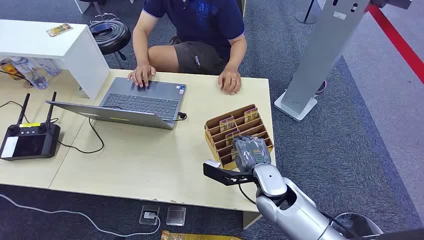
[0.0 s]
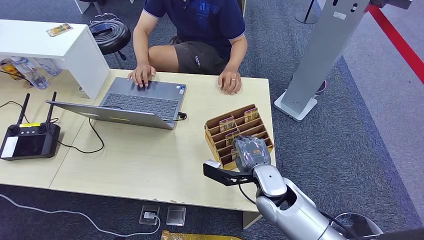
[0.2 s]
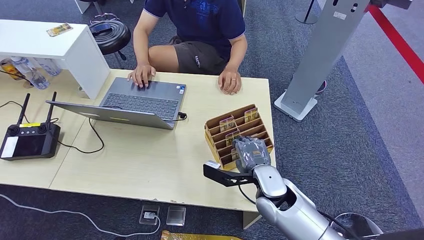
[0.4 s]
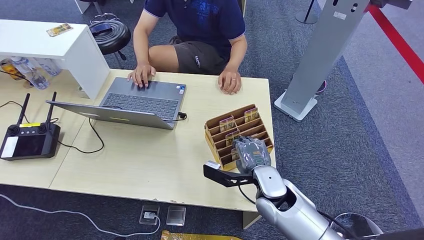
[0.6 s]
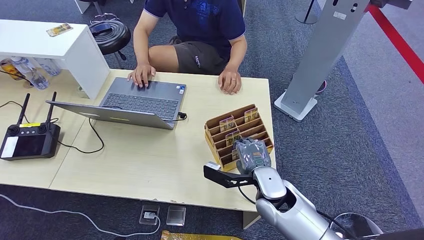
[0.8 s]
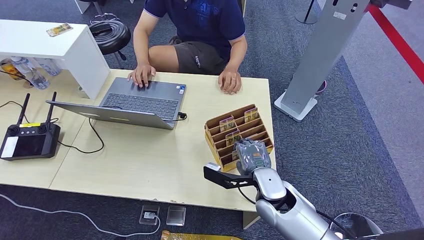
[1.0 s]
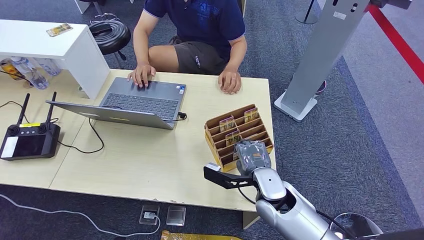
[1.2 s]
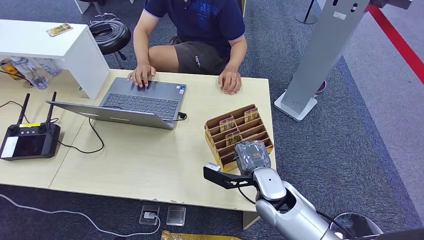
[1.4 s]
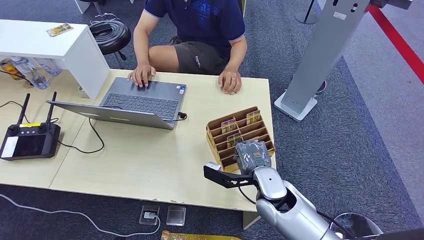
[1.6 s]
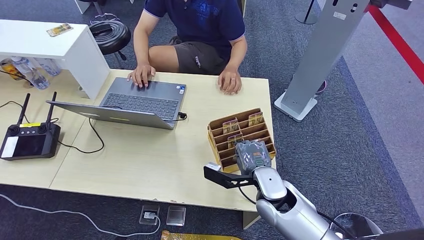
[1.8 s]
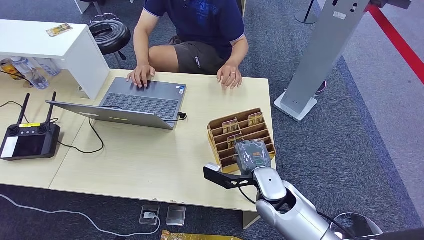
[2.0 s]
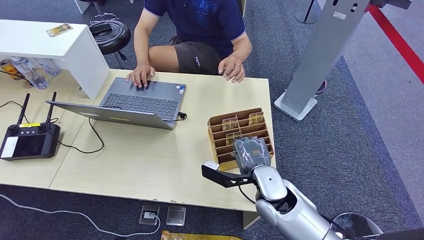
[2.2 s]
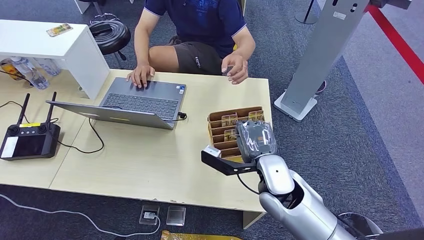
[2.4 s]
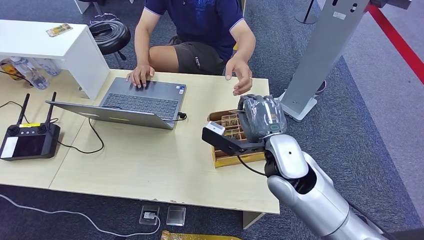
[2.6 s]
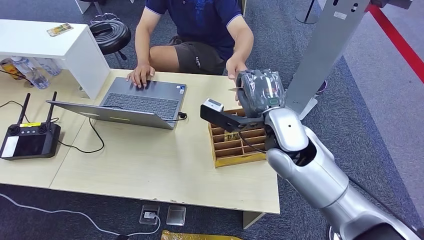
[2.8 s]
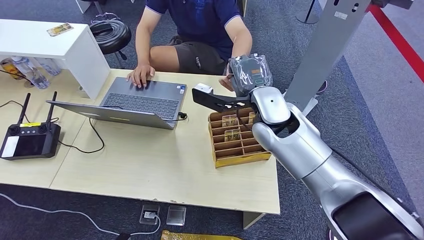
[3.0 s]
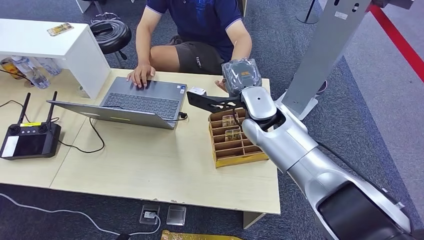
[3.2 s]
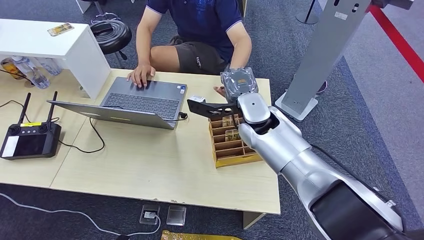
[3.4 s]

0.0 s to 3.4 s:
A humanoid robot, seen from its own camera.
Step, 0.0 to 2.4 s: Pick up the room card from the card holder.
Step, 2.6 to 3.4 s: Hand the room card to the target.
1.6 to 3.4 s: The right hand is displaced upward and forward by roughly 20 cm.
